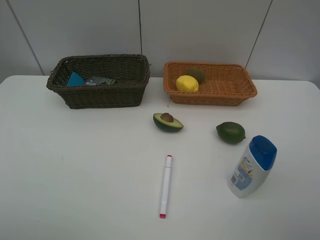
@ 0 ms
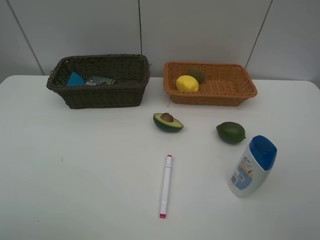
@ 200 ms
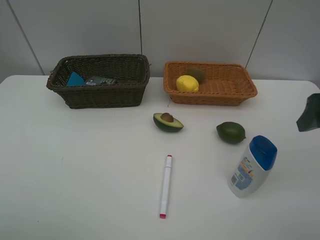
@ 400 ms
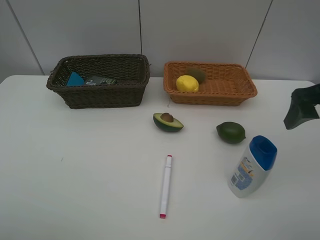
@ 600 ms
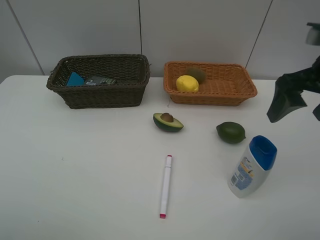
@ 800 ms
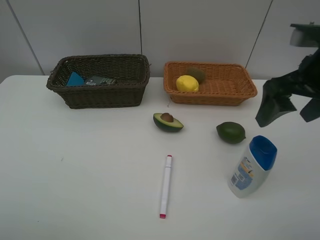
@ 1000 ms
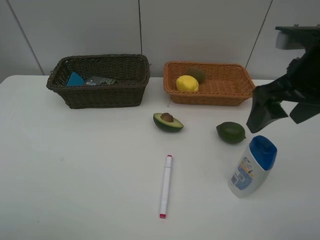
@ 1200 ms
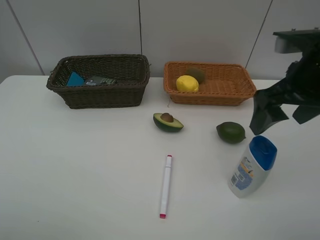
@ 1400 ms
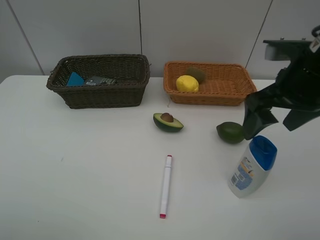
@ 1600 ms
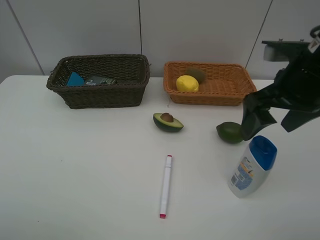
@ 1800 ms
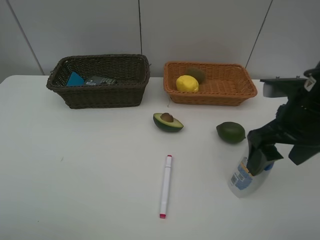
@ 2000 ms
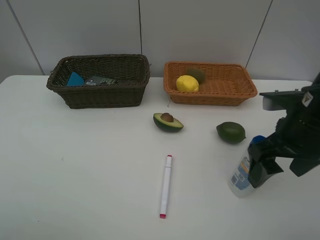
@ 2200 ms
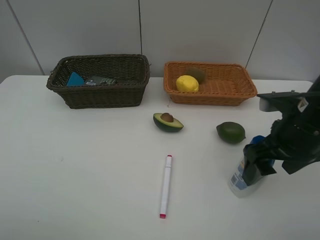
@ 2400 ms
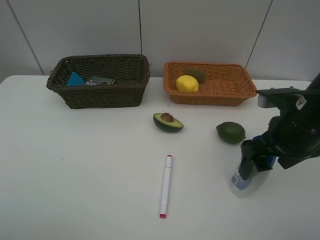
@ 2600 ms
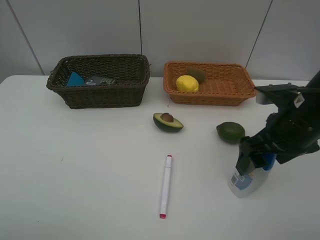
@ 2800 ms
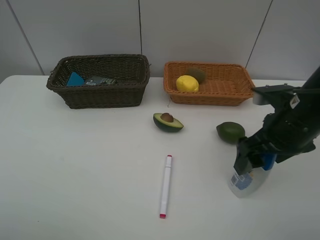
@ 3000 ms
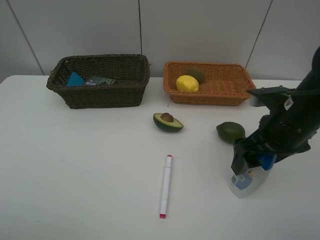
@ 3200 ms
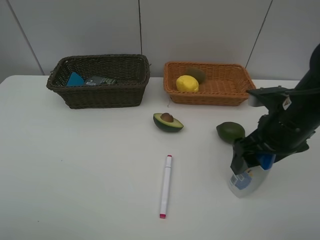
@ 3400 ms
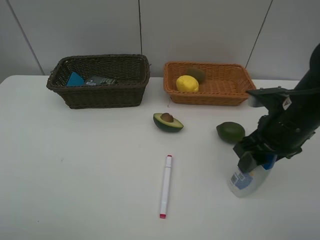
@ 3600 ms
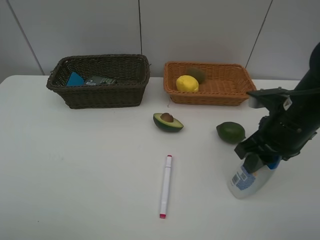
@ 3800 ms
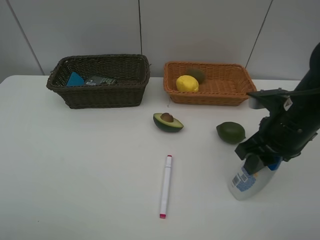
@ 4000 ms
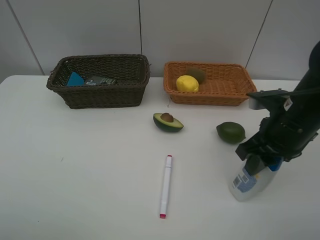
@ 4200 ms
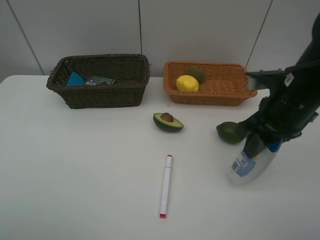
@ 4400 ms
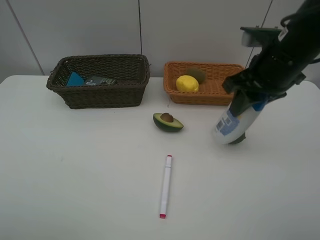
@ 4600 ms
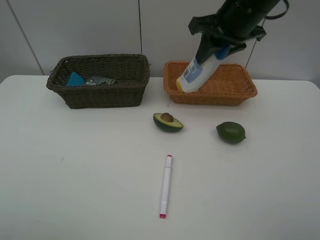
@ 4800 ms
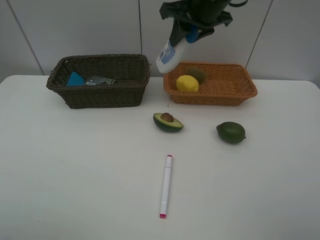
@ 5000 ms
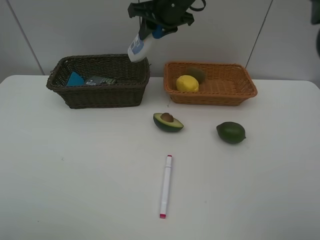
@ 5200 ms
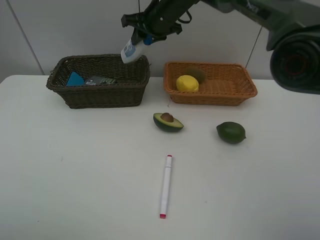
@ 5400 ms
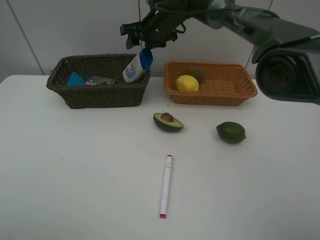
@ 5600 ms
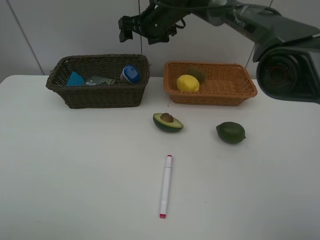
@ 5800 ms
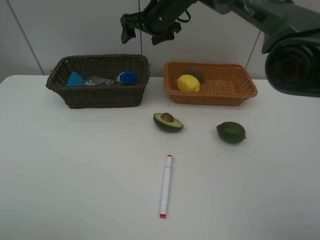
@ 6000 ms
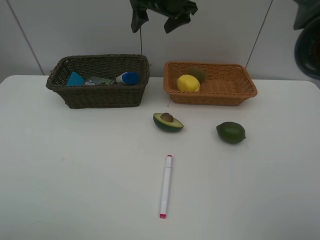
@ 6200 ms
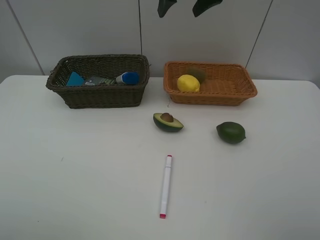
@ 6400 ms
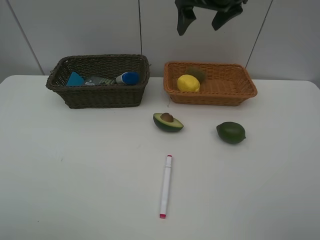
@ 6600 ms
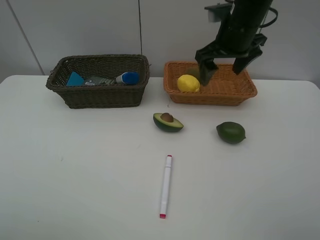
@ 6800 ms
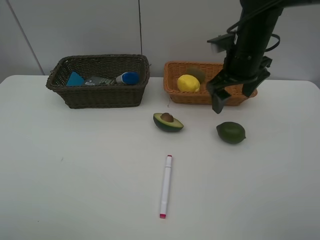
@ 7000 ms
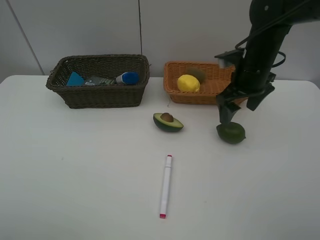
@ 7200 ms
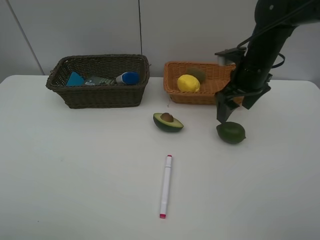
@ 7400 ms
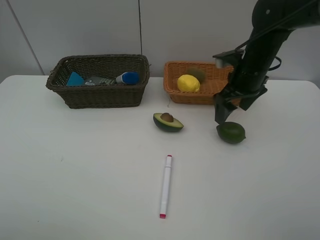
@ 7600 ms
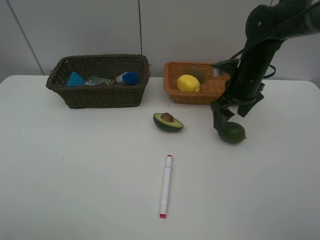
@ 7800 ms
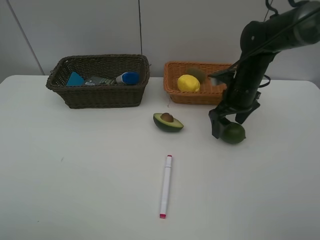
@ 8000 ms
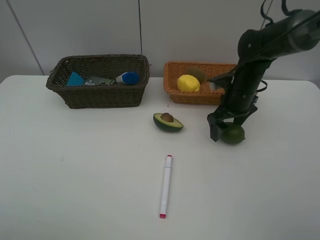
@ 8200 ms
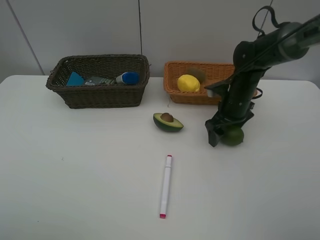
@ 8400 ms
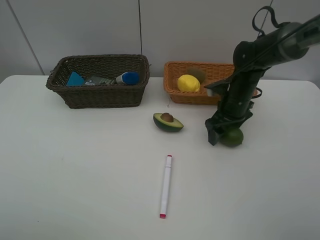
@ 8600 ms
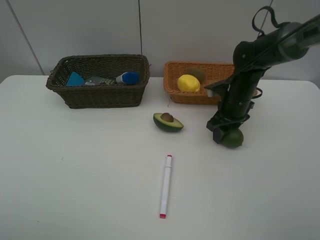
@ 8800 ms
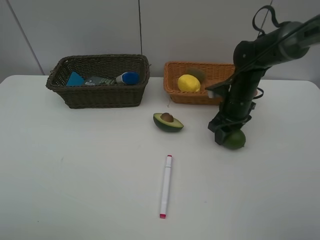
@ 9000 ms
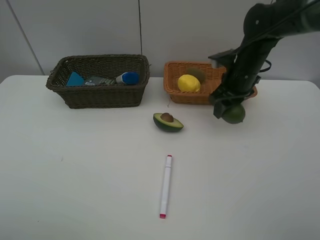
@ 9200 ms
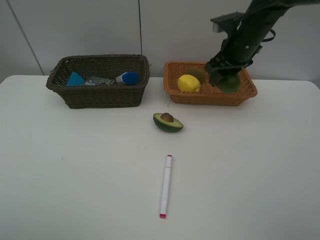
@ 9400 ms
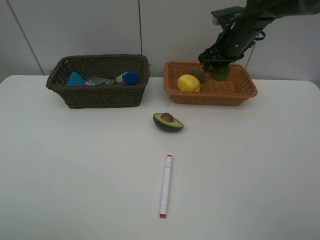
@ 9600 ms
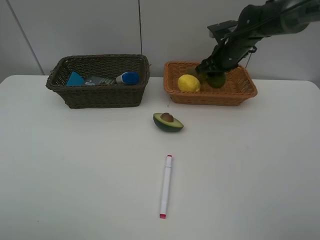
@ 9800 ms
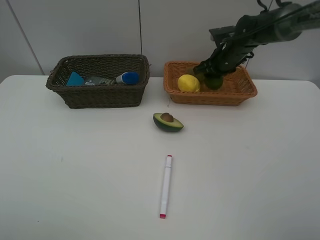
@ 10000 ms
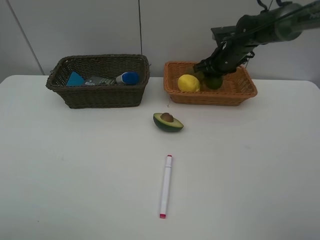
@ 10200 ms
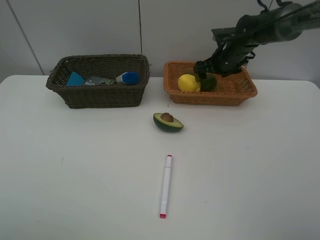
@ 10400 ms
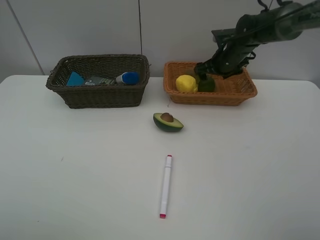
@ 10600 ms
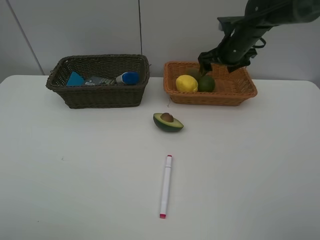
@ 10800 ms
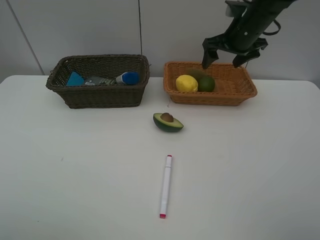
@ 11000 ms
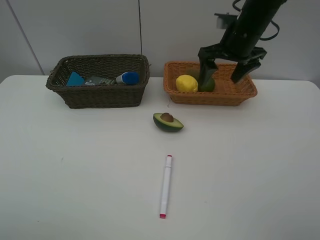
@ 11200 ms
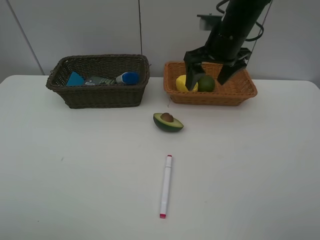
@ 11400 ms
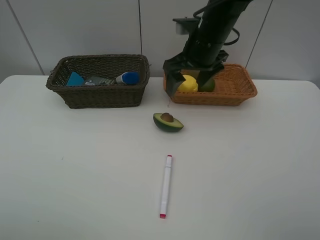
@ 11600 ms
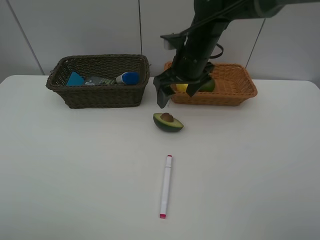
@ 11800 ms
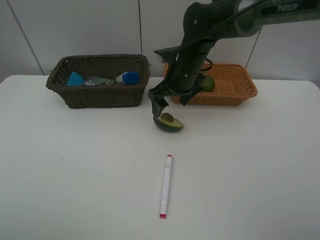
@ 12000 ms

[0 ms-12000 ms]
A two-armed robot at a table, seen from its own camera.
Task of the whole recording: Place multiple objects separately in different baskets.
Step, 0 ms to 4400 ms: Pick up the shampoo with right gripper.
Step, 4600 ms to 5800 ms: Place the shampoo in the dark basket with right gripper.
Step, 6000 ms to 9000 ms: Pick up the lime with right gripper.
Step, 9200 ms to 10800 ms: Place the lime in the light basket with right gripper.
0 ms to 1600 ms: The right gripper travels forward and to the left by approximately 20 cm.
1600 ms to 3000 ms: The right gripper moves downward, approximately 5 cm.
3000 ms to 4400 ms: The right gripper shifts by about 5 cm, and closes its fingers.
4400 ms to 6000 ms: The right gripper moves forward and to the left, roughly 30 cm, and opens up.
6000 ms to 7600 ms: The right gripper goes approximately 20 cm to the right, backward and downward.
7600 ms to 9000 ms: The right gripper shifts some 5 cm downward, and closes its fingers.
9000 ms to 10400 ms: The right gripper shifts approximately 10 cm forward, moves approximately 10 cm upward and comes back, and opens up.
10400 ms to 12000 ms: The right gripper travels to the left and backward by approximately 15 cm.

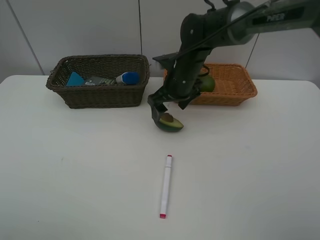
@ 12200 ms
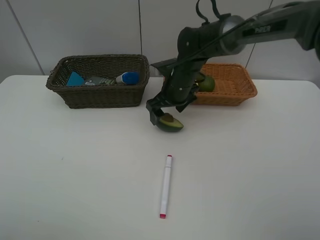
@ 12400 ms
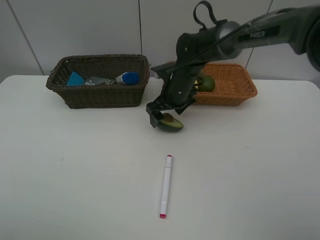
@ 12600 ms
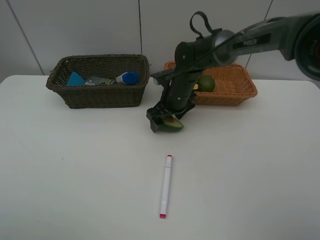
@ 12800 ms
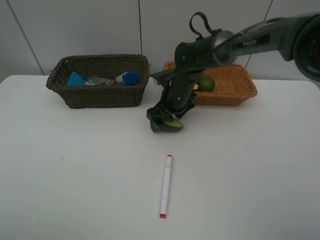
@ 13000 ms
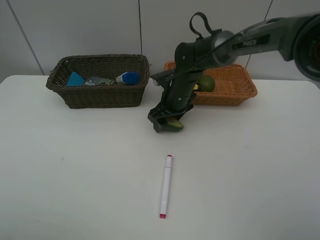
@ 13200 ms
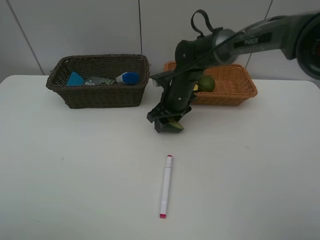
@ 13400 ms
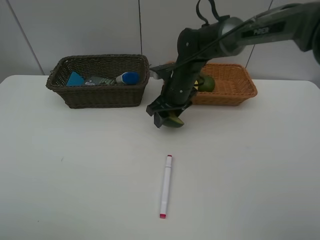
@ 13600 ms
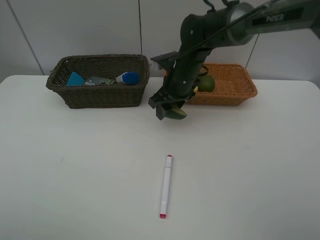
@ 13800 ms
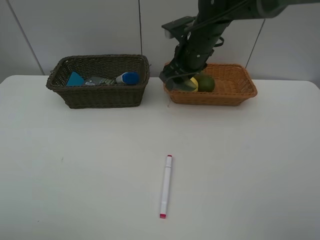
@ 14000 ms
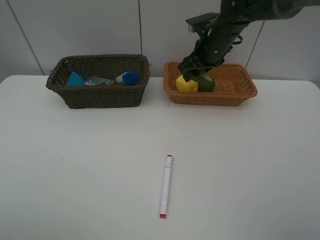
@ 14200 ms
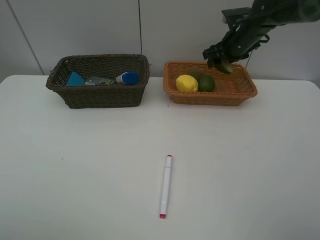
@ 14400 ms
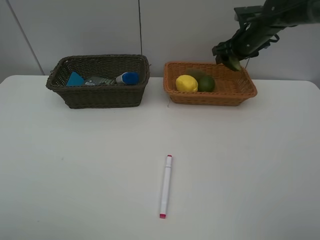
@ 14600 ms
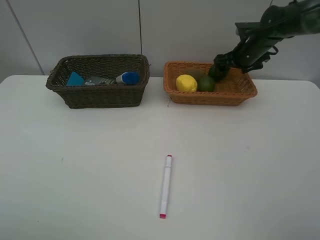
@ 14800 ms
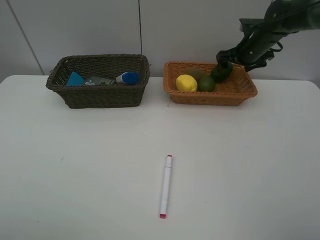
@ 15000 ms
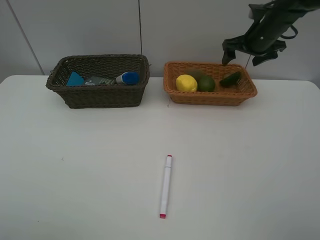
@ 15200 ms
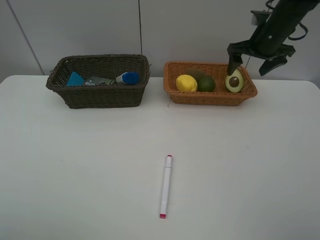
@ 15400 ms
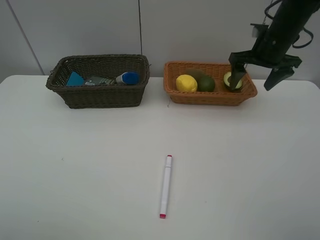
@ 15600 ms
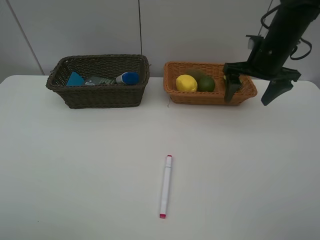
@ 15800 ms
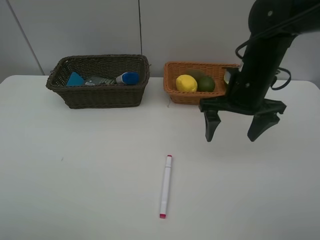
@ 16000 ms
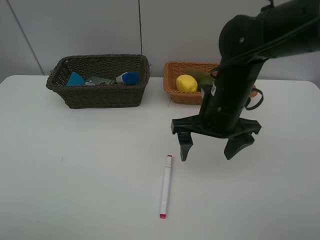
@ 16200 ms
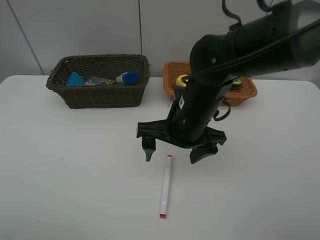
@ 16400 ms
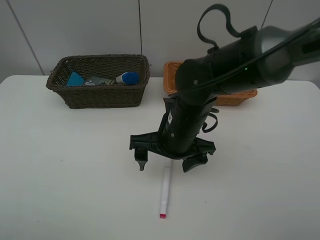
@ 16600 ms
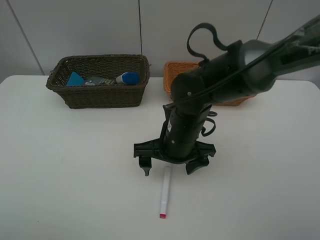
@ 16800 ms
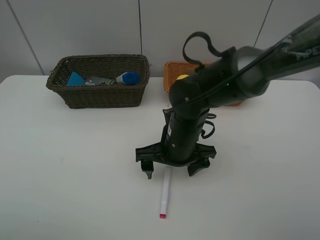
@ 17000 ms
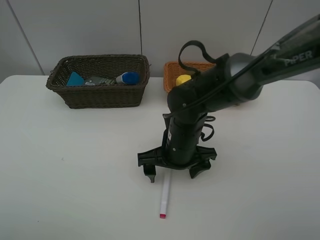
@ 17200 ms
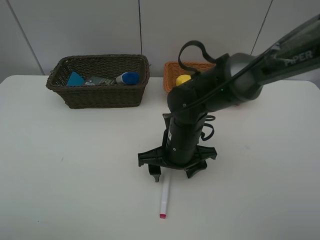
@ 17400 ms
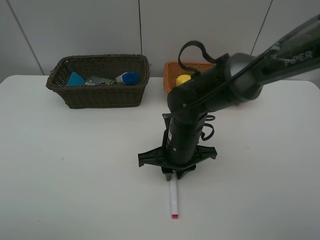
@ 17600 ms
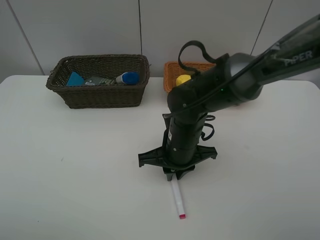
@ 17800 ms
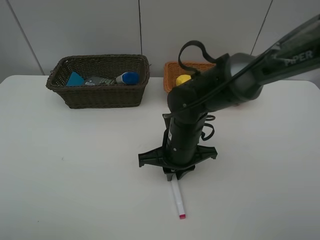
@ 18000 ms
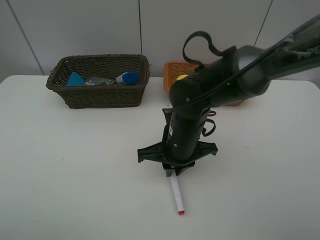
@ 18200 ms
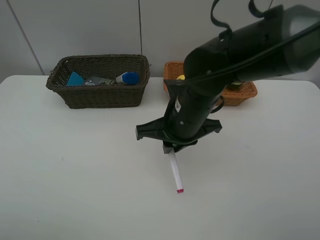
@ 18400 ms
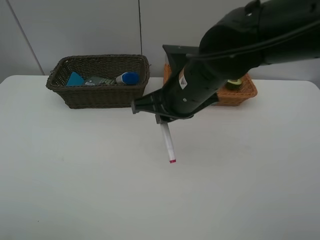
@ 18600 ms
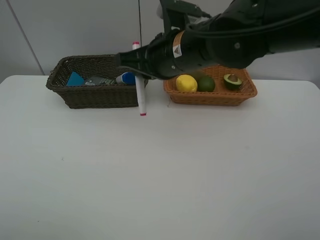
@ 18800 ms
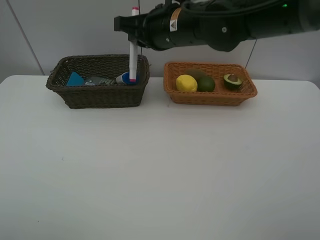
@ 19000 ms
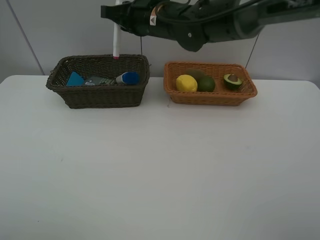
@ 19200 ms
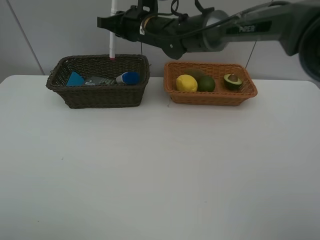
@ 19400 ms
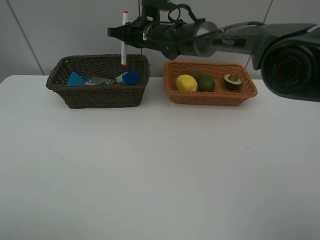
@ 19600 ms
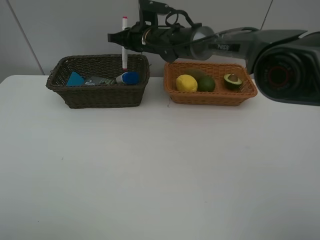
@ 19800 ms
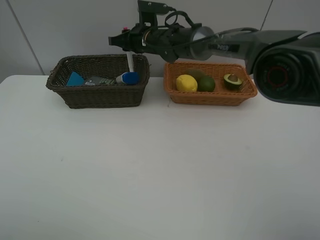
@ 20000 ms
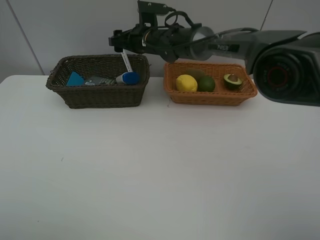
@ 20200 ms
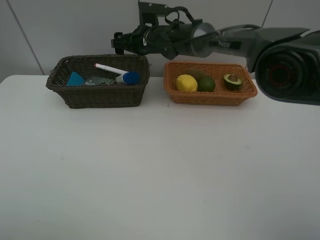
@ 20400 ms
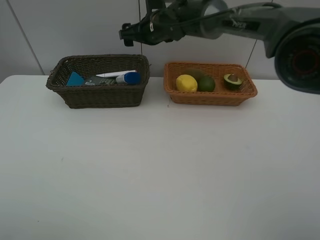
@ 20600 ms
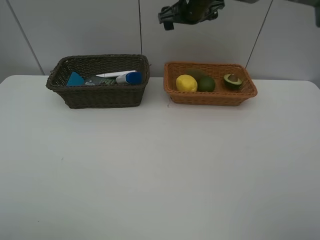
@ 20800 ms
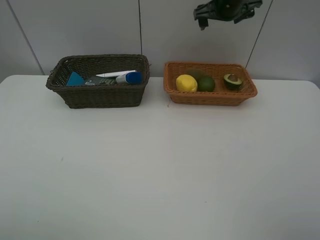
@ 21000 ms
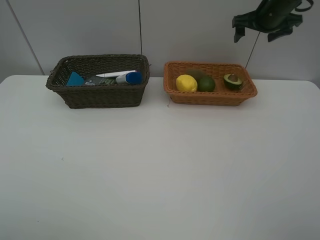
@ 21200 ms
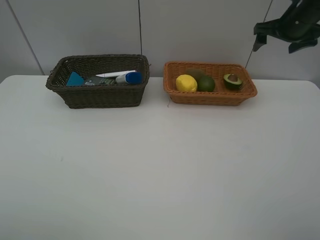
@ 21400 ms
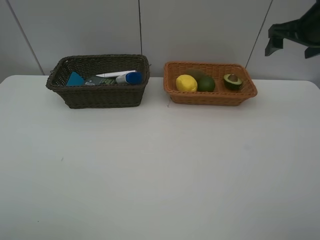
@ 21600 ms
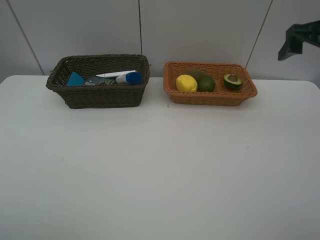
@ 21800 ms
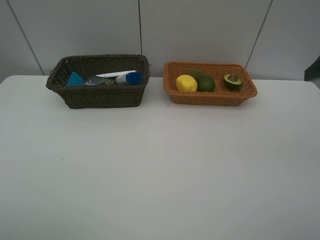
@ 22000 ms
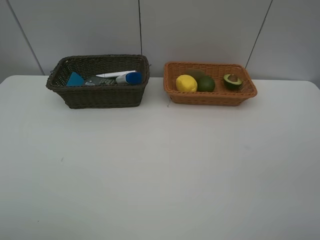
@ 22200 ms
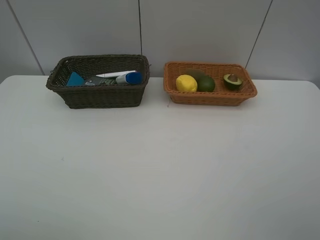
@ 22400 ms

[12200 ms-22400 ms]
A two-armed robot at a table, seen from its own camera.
Task of the whole recording: Place multiple objects separately in different baskets.
Step, 12200 ms to 13600 ms: Pick up the avocado with right gripper.
Step, 13800 ms to 15000 ms: Place the avocado in the light basket with right gripper.
Step, 15200 ms to 18200 ms: Pick up the red marker with right gripper.
Step, 18400 ms to 20400 ms: Place the red marker in the dark basket with right gripper.
12200 ms to 13600 ms: The right gripper closes up.
13600 ms to 15200 ms: The right gripper goes approximately 20 cm to the right and upward, and opens its fingers.
15200 ms to 16600 ms: The right gripper shifts approximately 30 cm backward, to the left and downward.
16600 ms to 18000 ms: The right gripper closes up.
18000 ms to 19400 ms: The right gripper goes about 25 cm forward and upward.
19400 ms to 21000 ms: The right gripper goes approximately 20 cm to the right, and opens.
21000 ms to 22400 ms: The right gripper heads backward, covering roughly 40 cm.
